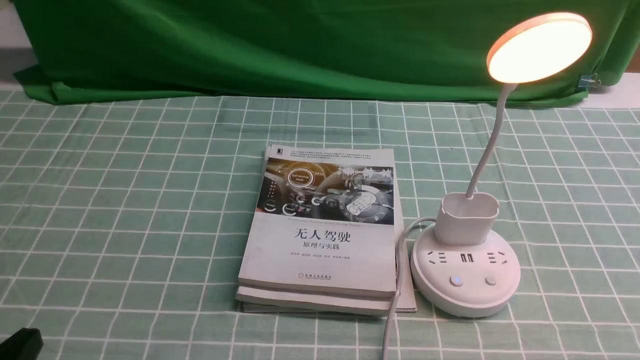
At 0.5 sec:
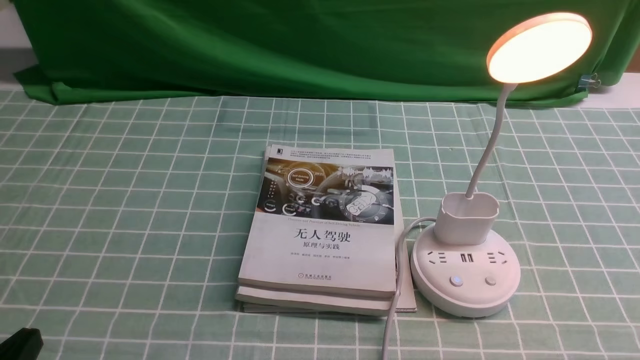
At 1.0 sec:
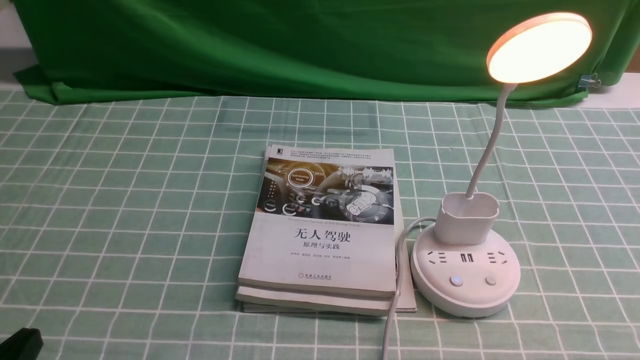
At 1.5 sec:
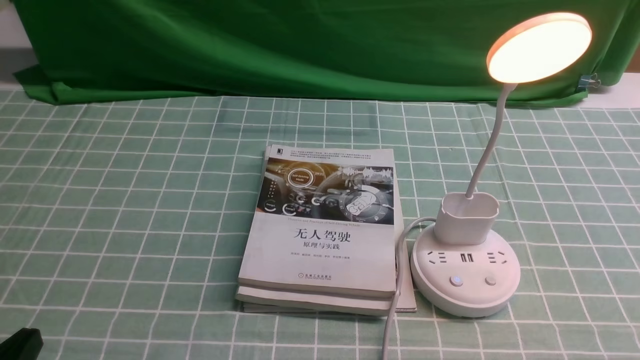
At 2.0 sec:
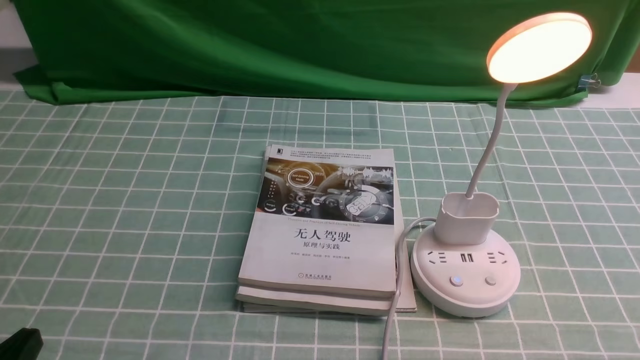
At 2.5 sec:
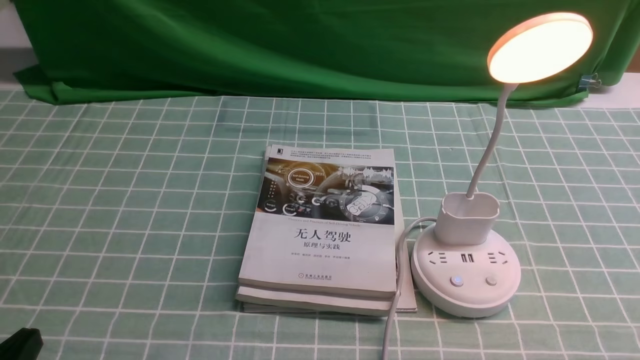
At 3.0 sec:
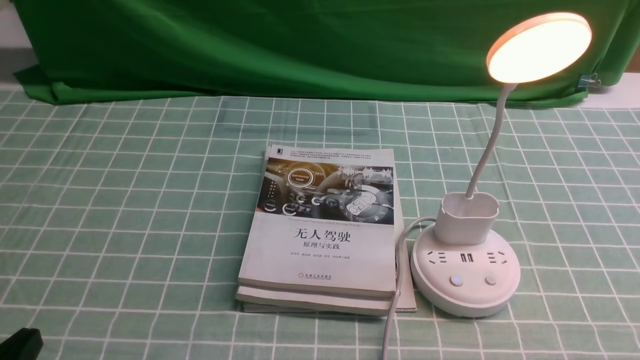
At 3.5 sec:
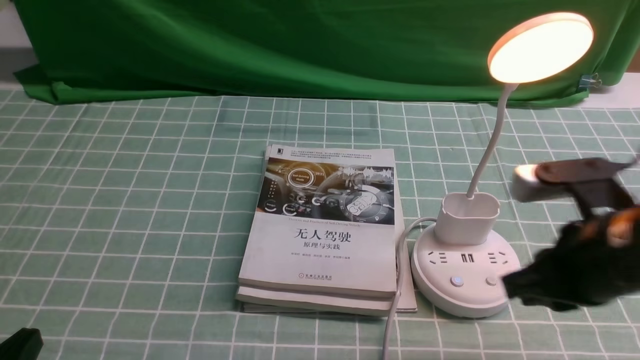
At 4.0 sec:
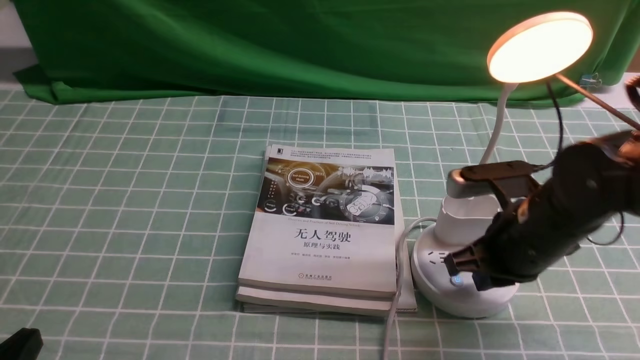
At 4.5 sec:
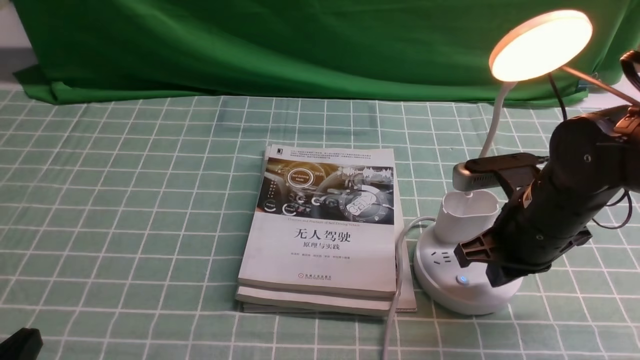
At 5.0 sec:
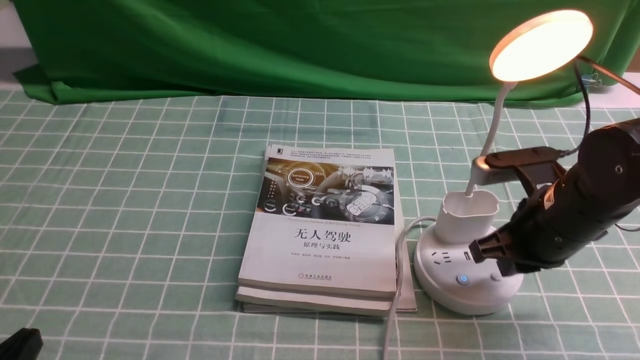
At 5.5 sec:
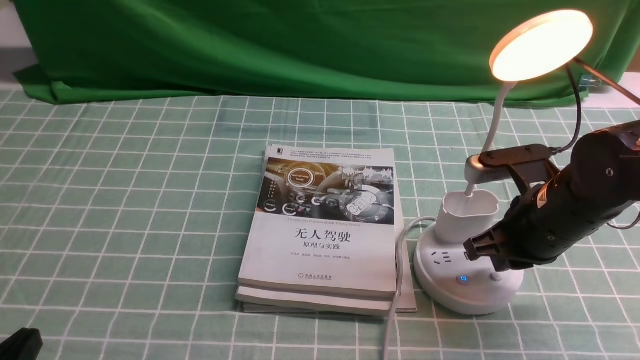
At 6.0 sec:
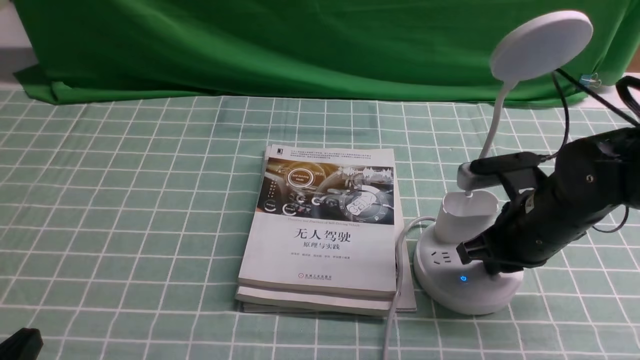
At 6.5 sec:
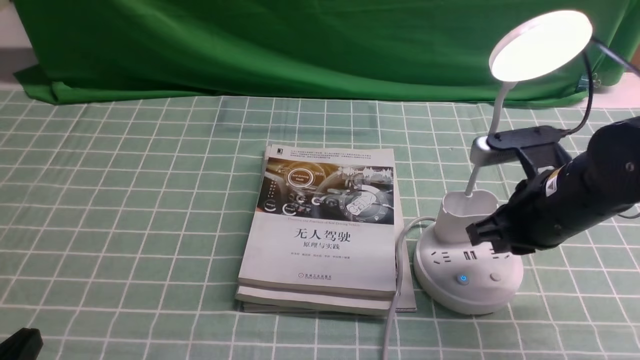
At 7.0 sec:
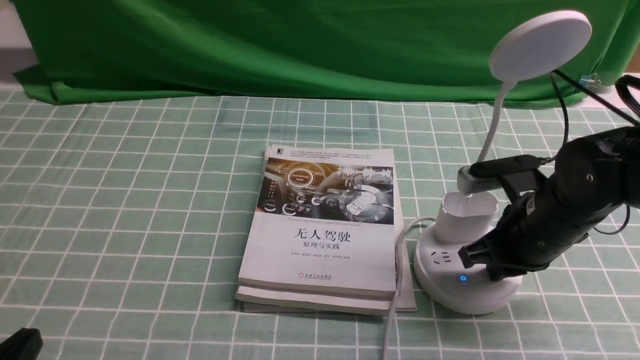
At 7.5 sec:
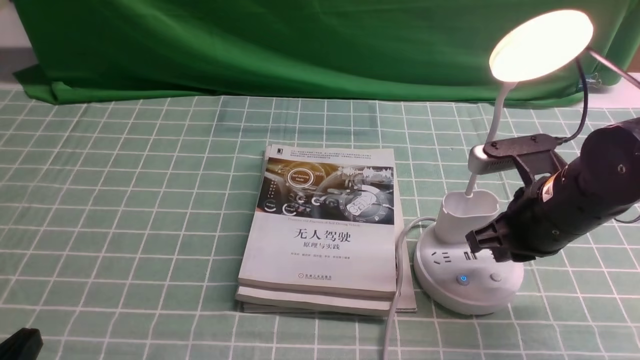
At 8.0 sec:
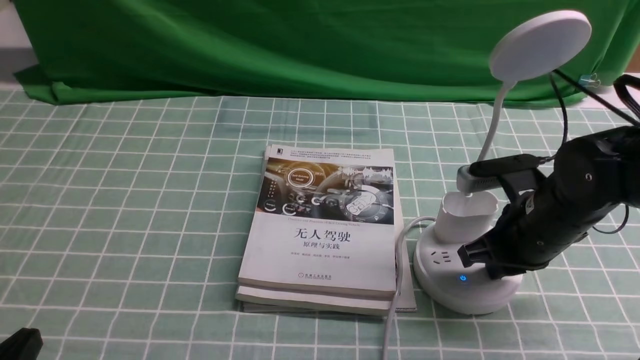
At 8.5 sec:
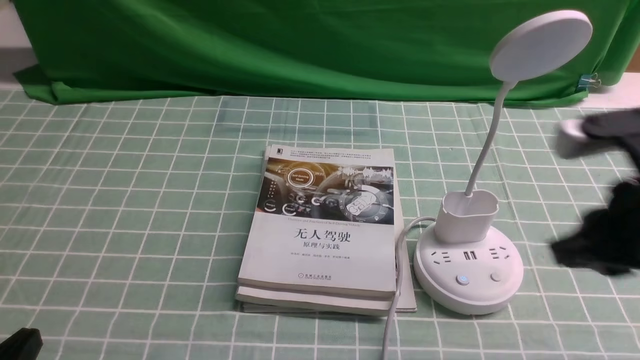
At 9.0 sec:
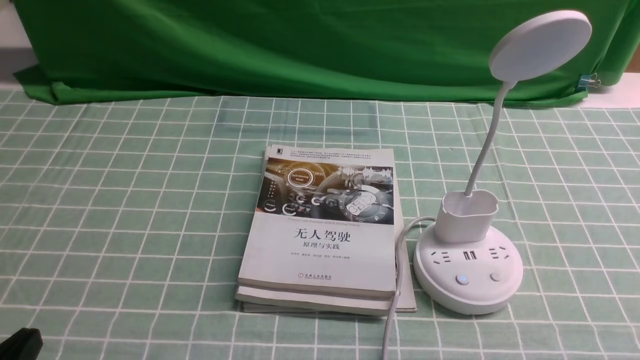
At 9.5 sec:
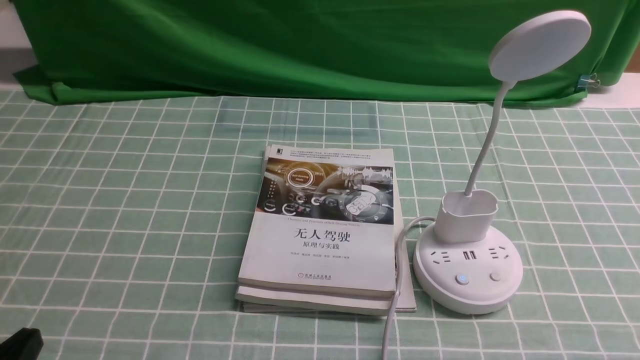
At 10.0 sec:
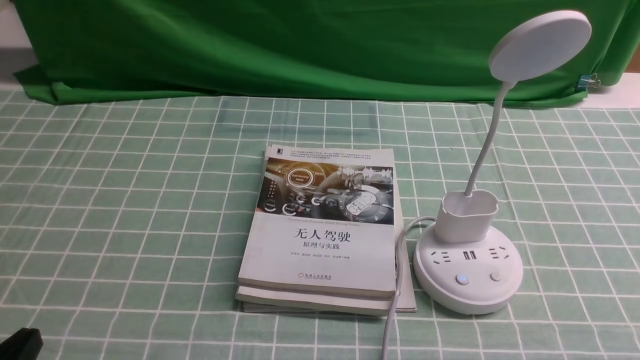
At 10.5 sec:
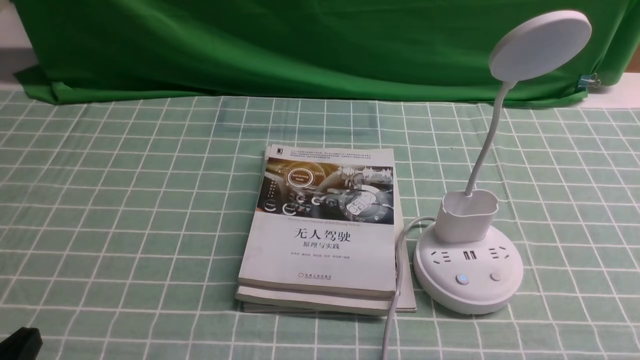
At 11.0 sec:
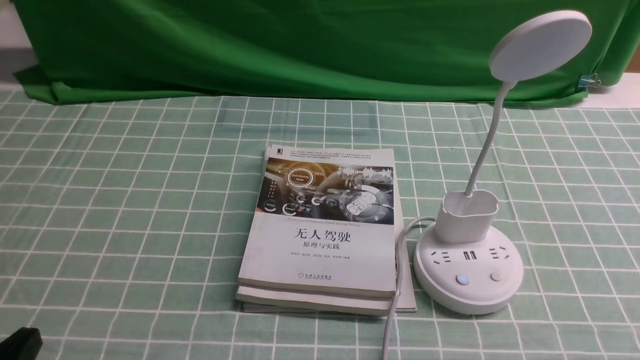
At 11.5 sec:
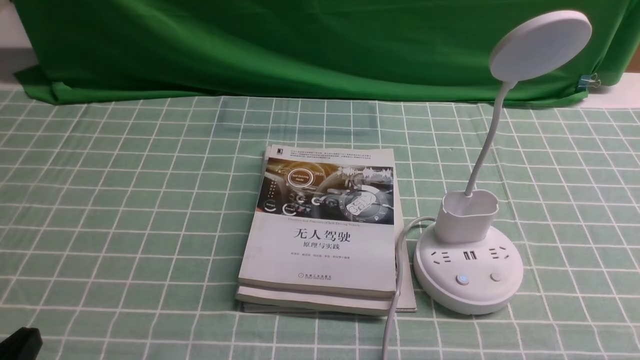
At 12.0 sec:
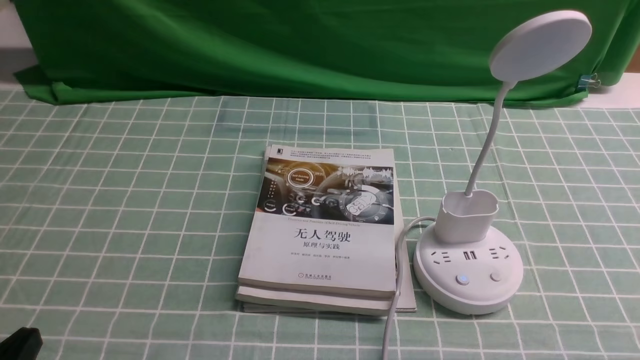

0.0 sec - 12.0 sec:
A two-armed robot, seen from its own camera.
Task of the whole recording: turn off the desk lamp on the blue coffee tablecloth by hand.
Step, 0.0 sec - 8.0 sec: use the right arm to press the button switch on the lamp holder.
0.0 sec - 2.0 sec: Neither gripper changes place.
2.0 sec - 4.0 sec: The right gripper is displaced forward and to the left by roughly 25 cm, and closes its fingers.
4.0 sec - 8.0 sec: There are only small adjustments of the grippers.
8.0 sec - 10.0 sec: The right gripper moves backward and to the right, about 25 cm.
